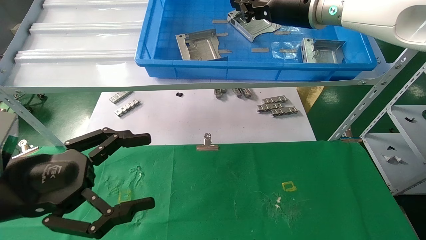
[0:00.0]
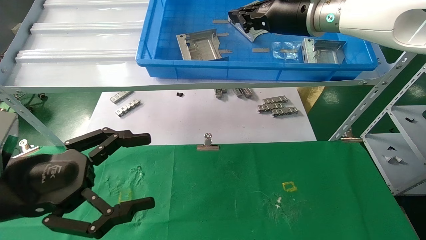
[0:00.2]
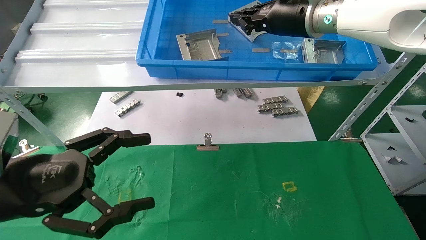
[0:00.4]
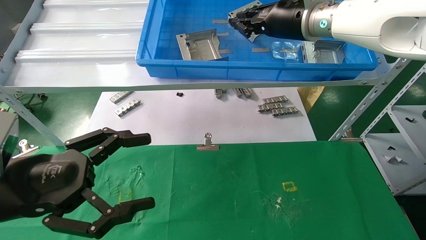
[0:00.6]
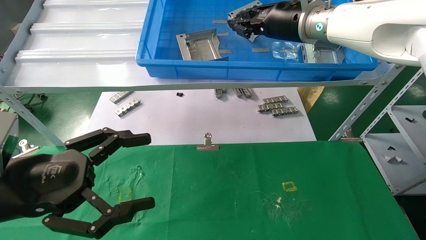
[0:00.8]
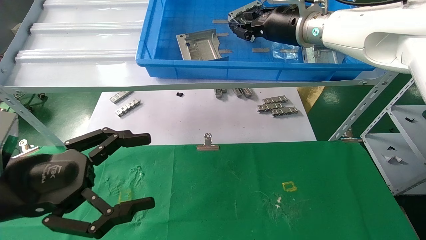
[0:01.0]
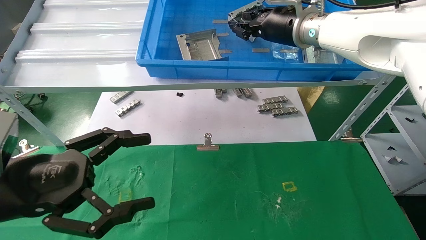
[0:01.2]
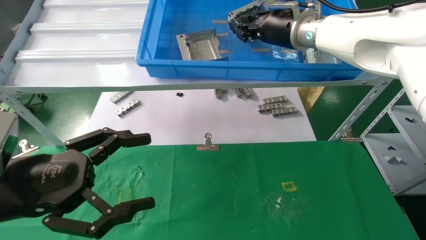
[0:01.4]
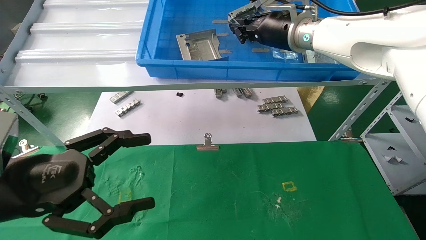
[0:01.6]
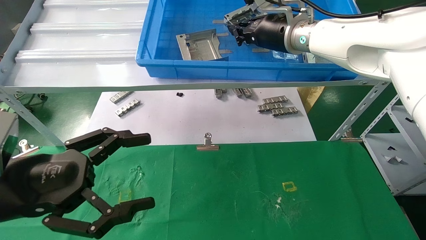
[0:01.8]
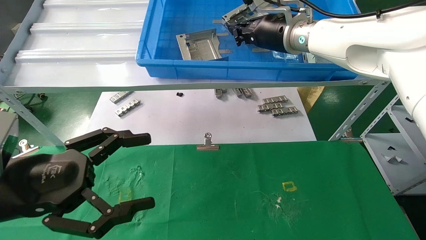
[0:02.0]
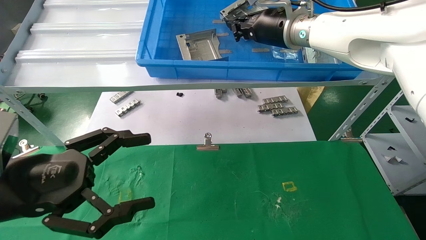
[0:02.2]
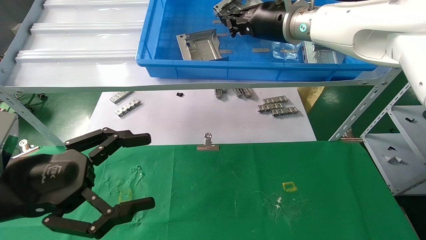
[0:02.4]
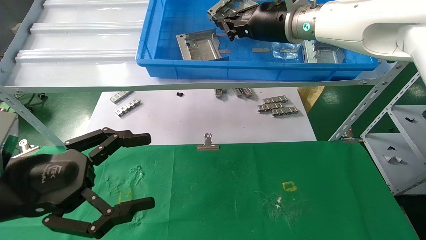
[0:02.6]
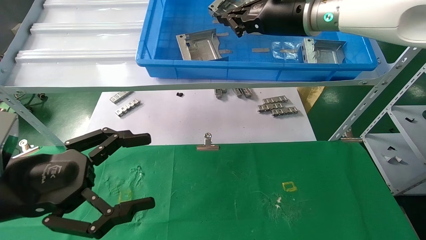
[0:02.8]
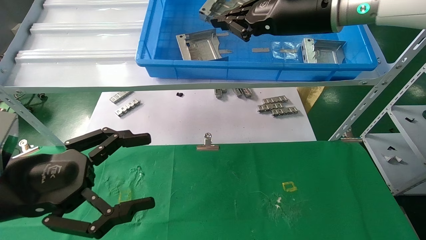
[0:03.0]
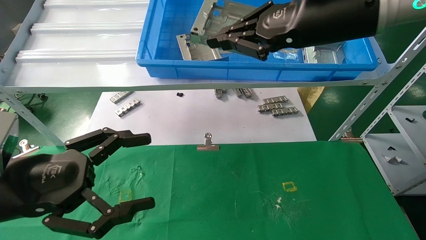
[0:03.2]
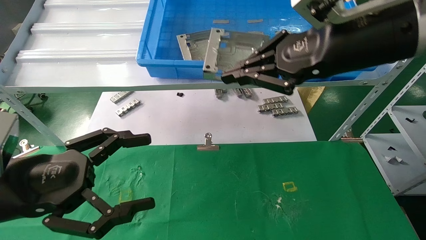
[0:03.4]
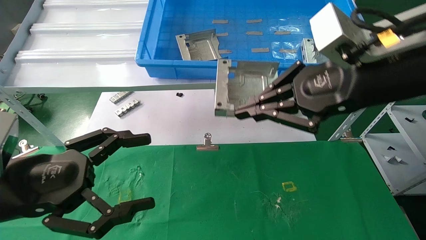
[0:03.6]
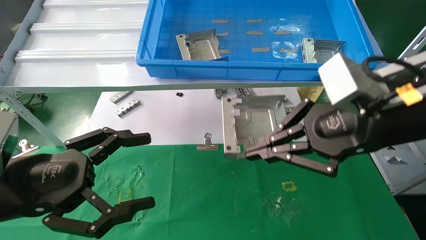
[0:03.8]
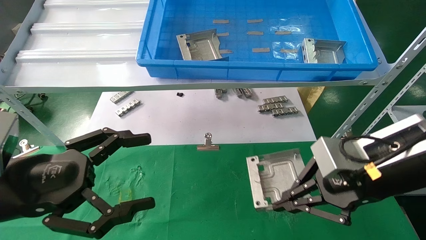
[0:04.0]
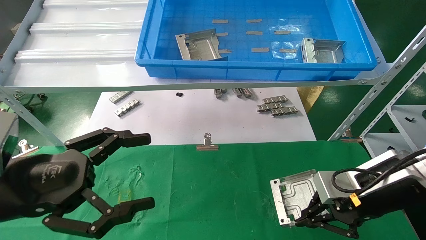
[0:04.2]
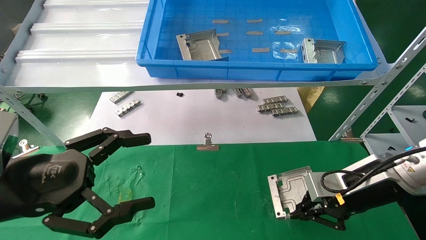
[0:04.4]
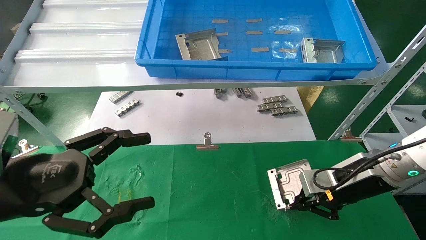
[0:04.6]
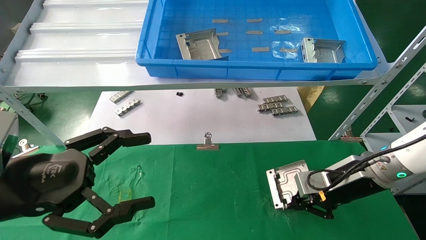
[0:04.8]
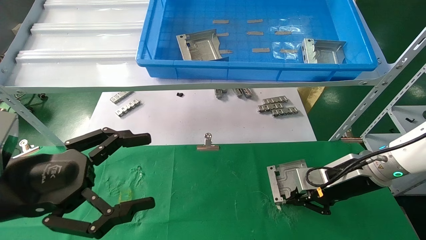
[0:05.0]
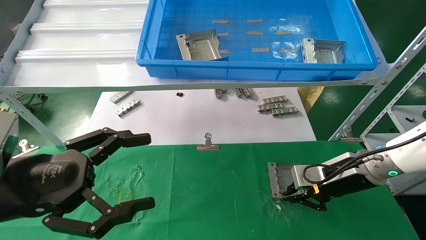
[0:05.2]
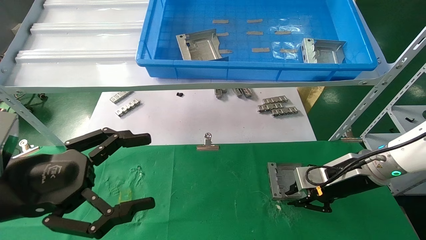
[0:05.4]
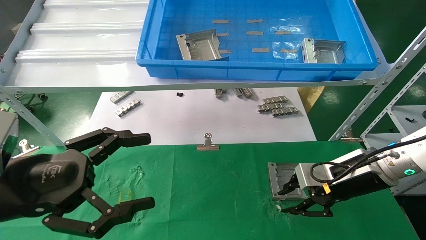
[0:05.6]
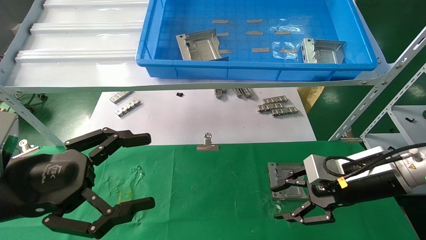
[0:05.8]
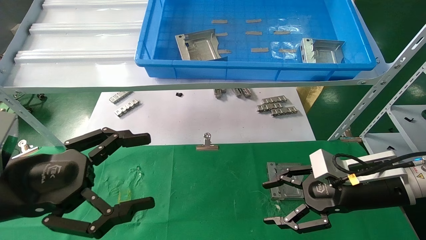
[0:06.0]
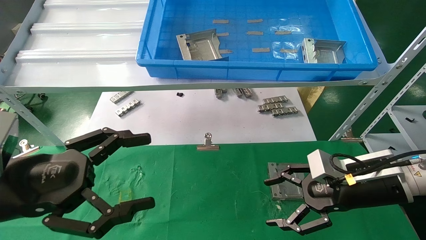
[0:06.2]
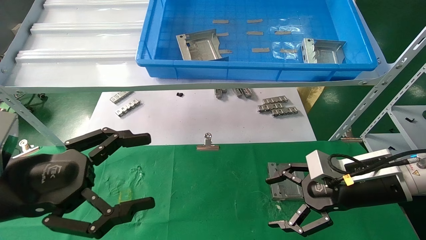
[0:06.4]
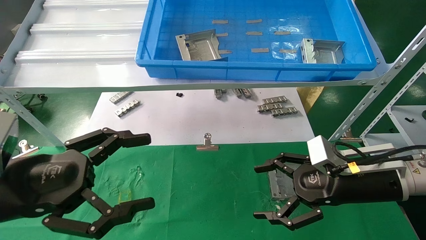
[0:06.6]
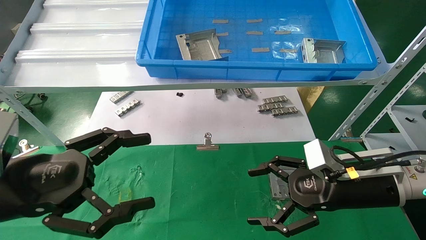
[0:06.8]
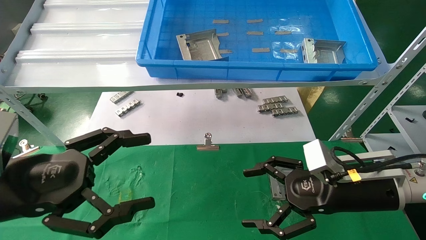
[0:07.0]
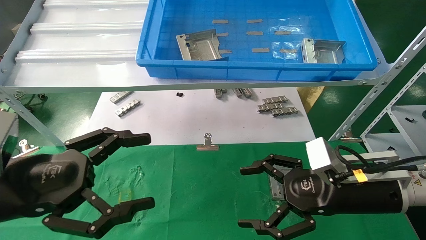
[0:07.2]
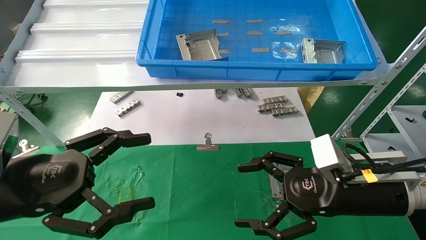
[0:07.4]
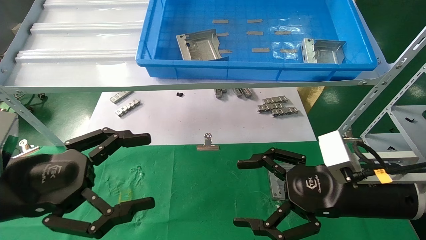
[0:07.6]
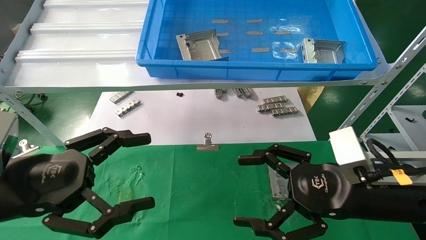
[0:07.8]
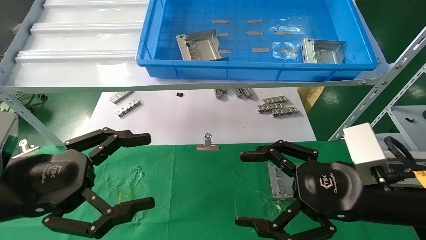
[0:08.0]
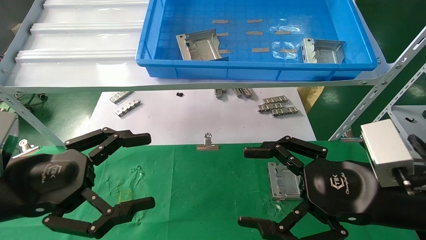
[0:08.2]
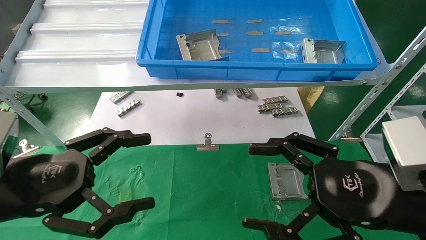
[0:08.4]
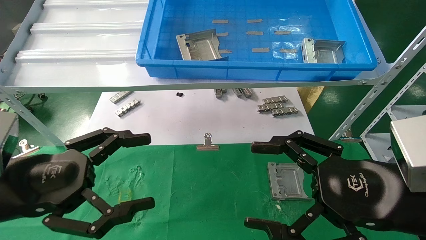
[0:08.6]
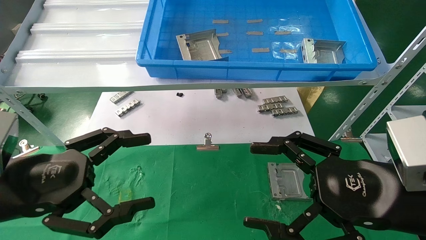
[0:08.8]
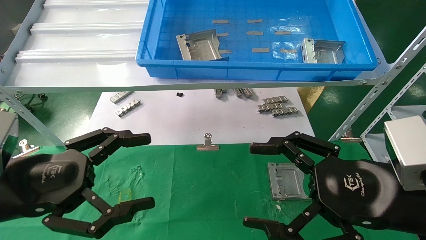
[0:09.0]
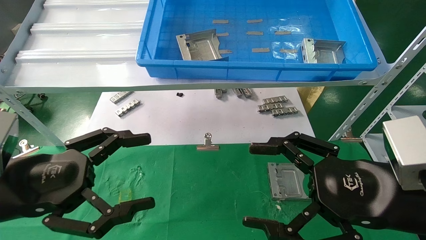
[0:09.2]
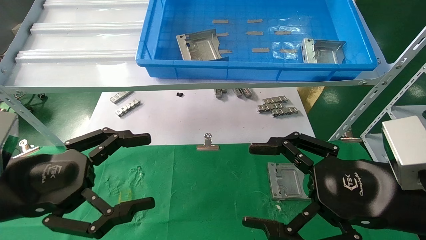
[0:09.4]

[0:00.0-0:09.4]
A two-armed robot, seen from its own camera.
Task of the whole recording: use the mechanical arm to pick up the parts and place them on the table.
Step, 0:00.0 to 0:03.0: Pick up the hard drive bracket from the feeding area.
Step, 0:03.2 to 0:06.2: Place the hard drive bracket into the box.
0:00.0 to 0:01.6: The right gripper shifts by some 5 cm.
0:01.6 to 0:03.2: The right gripper is displaced backward by roughly 15 cm.
0:03.2 to 0:04.8: The right gripper moves downward, roughly 25 cm.
0:04.8 to 0:06.2: The right gripper opens up.
0:06.2 to 0:07.8: The right gripper travels backward by roughly 5 cm.
0:07.8 to 0:09.4: The right gripper moves some 5 cm.

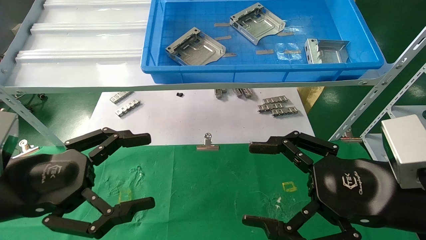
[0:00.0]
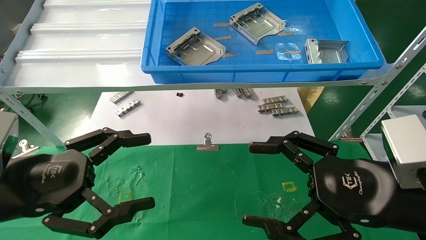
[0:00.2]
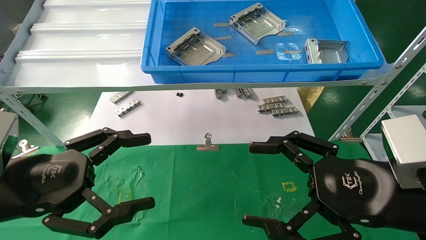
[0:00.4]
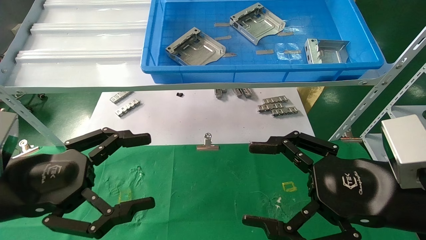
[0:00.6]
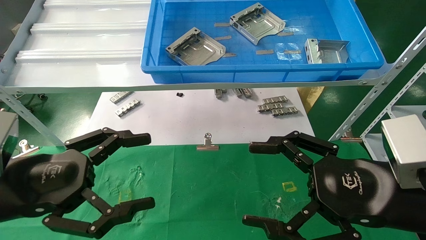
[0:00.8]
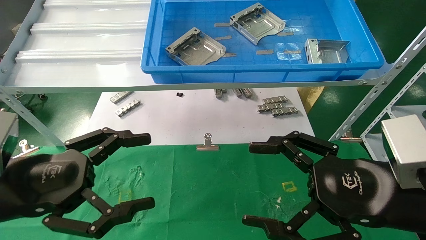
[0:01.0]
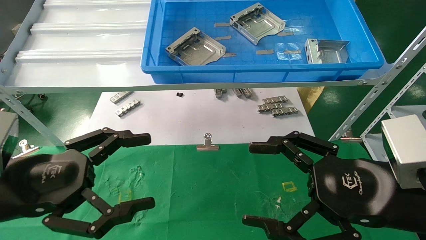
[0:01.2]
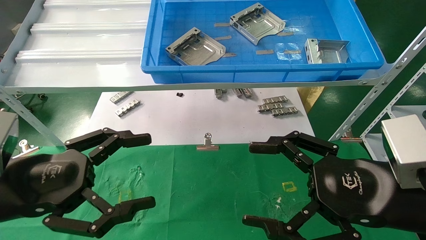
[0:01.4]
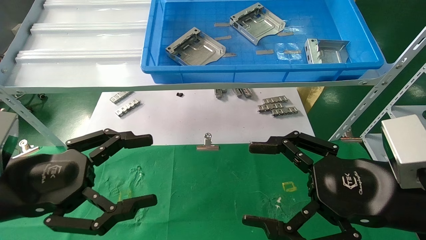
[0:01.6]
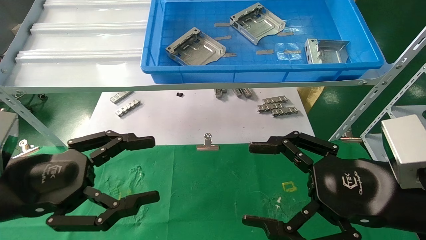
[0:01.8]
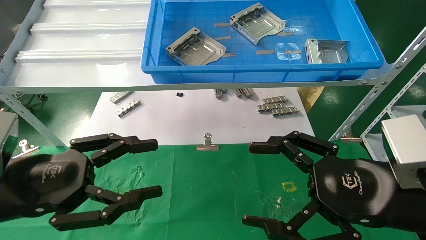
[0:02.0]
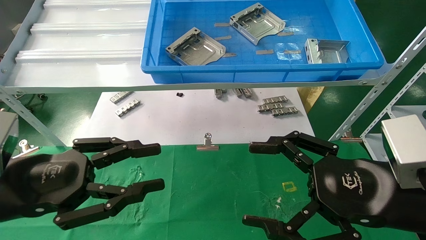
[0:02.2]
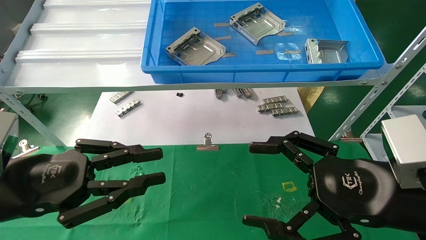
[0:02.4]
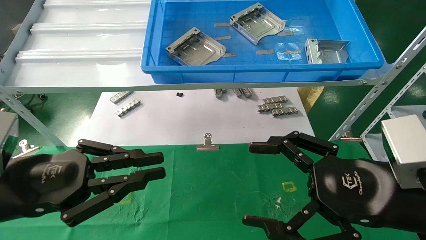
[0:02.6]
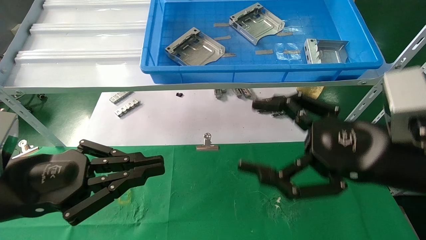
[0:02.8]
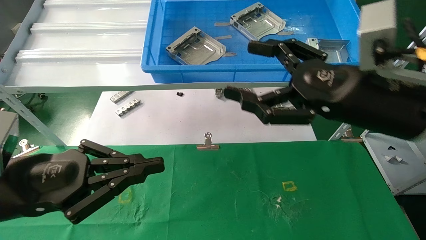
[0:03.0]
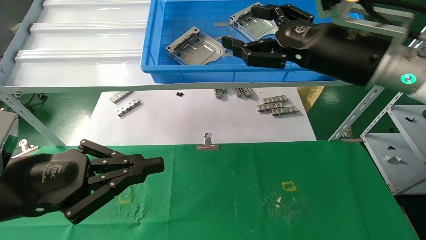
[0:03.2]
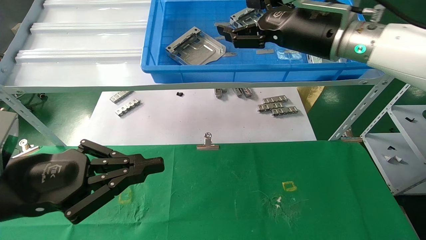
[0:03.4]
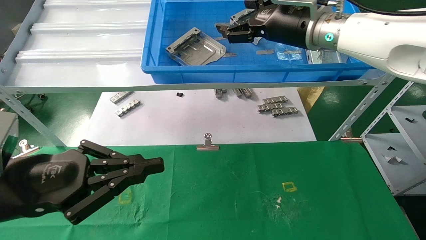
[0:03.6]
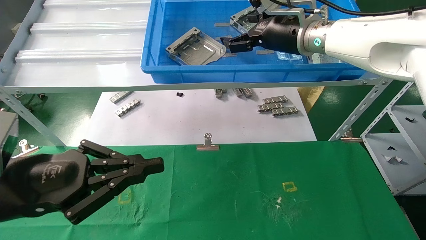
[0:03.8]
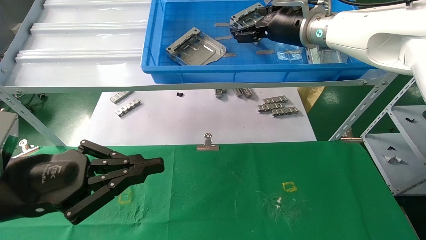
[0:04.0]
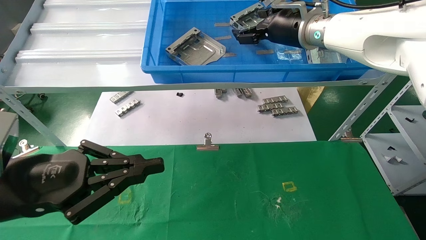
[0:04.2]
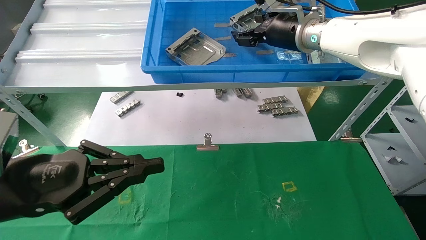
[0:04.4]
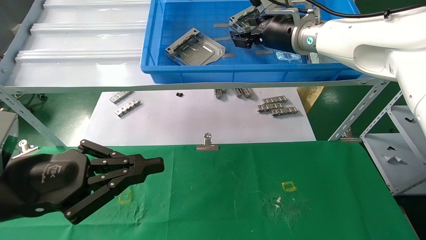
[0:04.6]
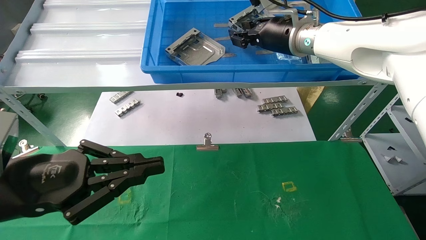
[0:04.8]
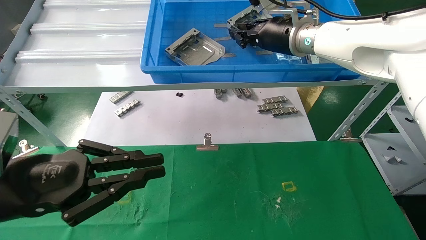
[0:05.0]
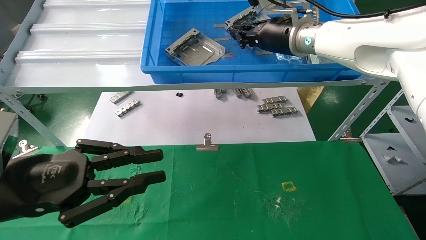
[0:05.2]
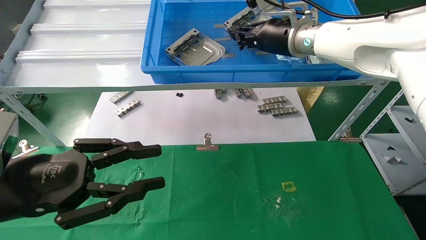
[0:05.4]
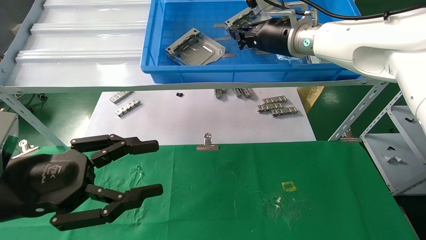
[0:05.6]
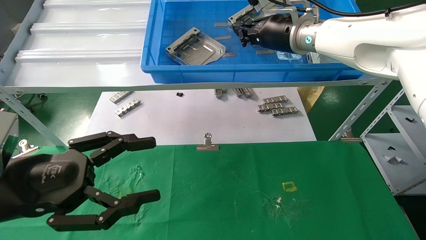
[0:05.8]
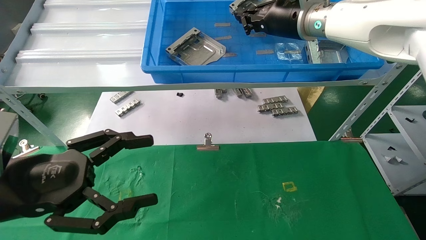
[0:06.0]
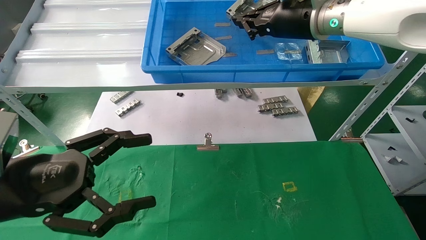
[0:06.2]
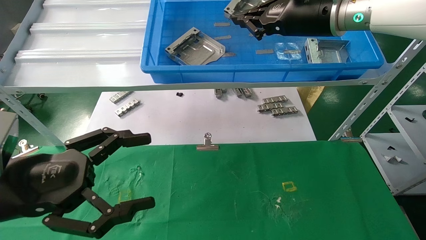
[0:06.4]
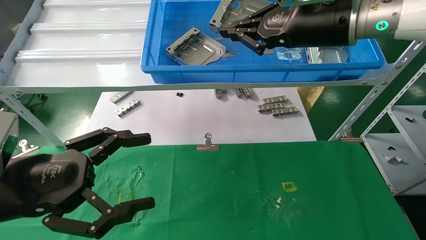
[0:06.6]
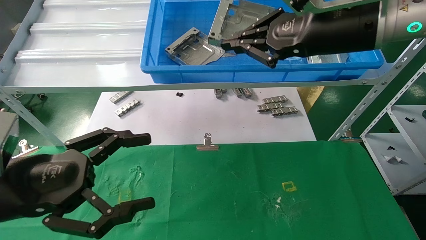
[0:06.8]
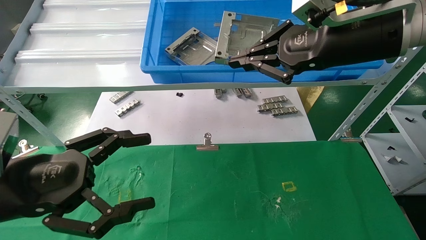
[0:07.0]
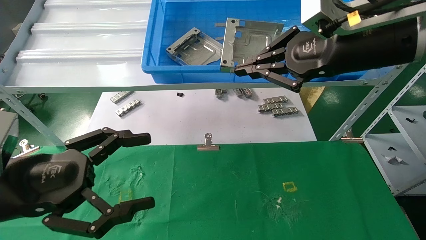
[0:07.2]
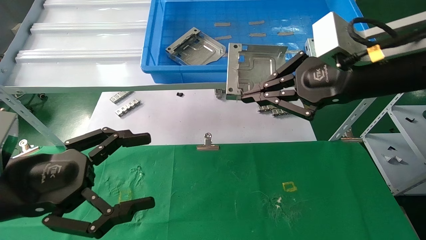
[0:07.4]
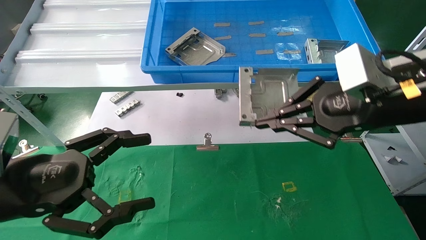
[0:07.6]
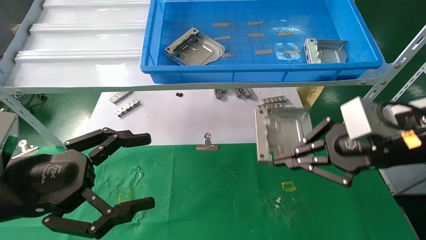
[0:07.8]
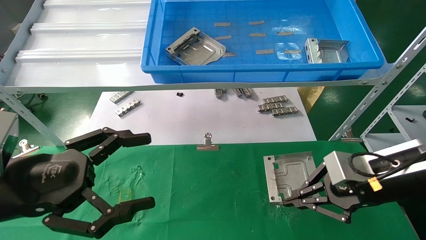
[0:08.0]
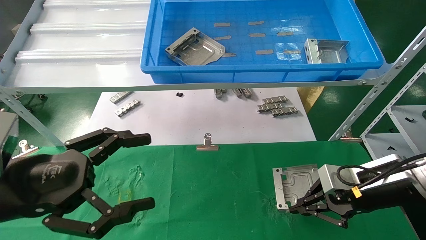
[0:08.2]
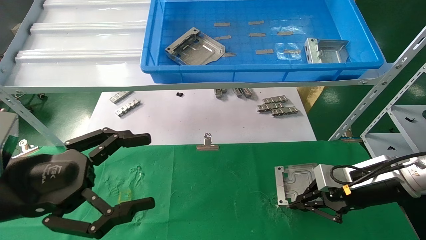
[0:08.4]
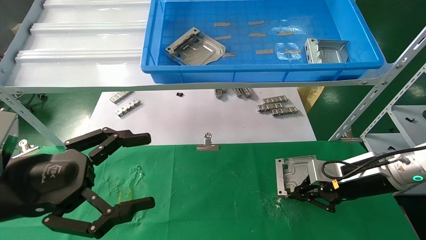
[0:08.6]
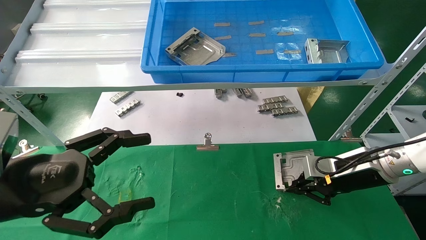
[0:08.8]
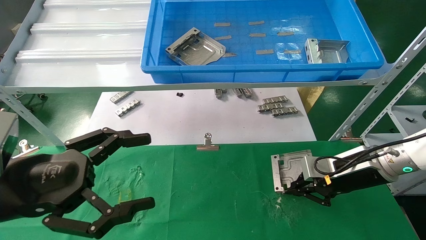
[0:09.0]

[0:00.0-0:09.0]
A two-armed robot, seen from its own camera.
Task of the whole recording: use the mechanical arm to pick up the parts and place them on the table.
Step, 0:03.0 to 0:05.4: Pick up the hard drive bracket from the feeding area.
0:00.0 to 0:01.6: Both grippers stay about where they are.
0:01.6 to 0:03.0: The right gripper shifts roughly 10 cm upward and forward; the left gripper closes its fingers.
0:03.0 to 0:04.4: The right gripper heads forward and upward, covering approximately 20 cm.
0:04.4 to 0:06.0: The left gripper opens, while the right gripper closes up.
0:06.0 to 0:07.6: The right gripper is displaced backward, to the right and downward by about 20 cm.
0:07.6 to 0:09.0: The right gripper travels downward and forward by about 20 cm.
